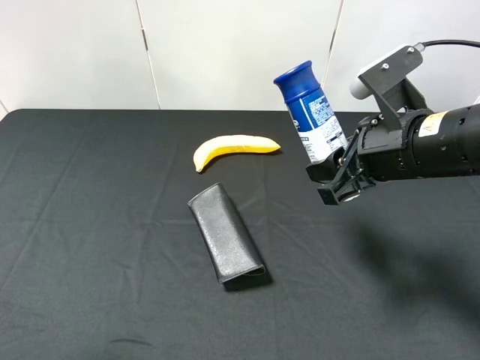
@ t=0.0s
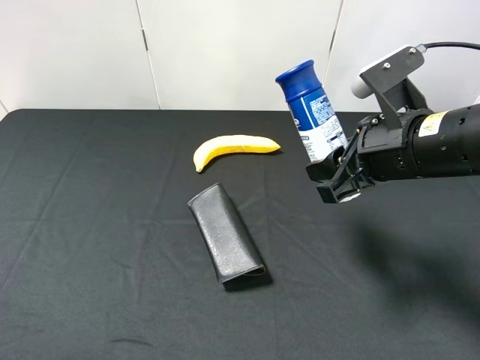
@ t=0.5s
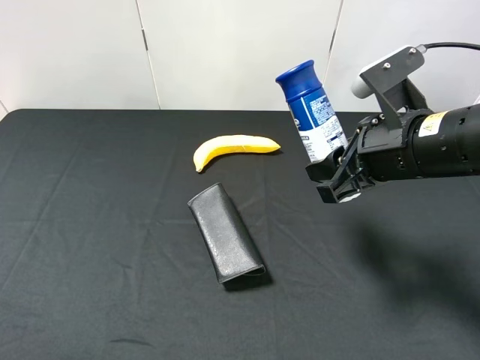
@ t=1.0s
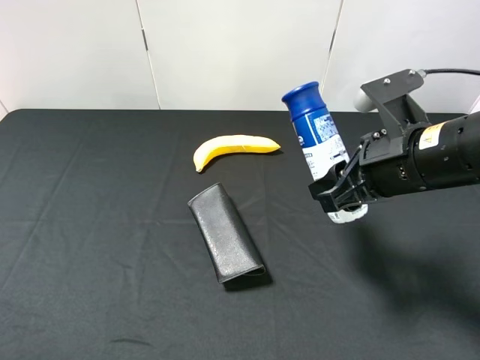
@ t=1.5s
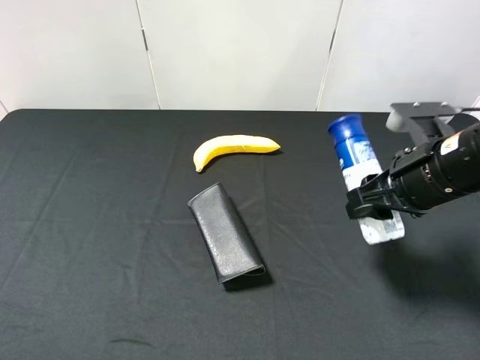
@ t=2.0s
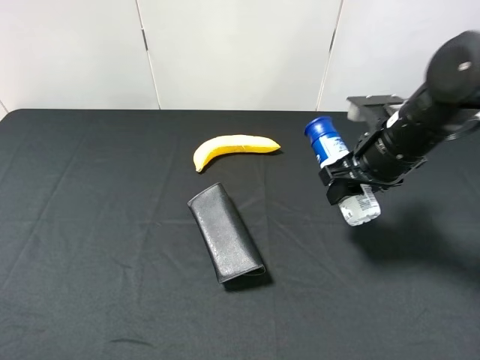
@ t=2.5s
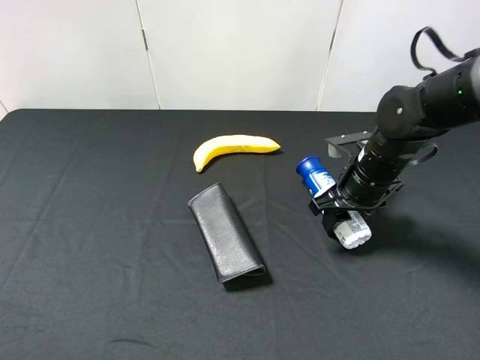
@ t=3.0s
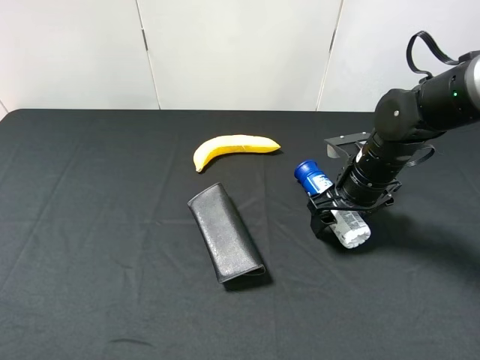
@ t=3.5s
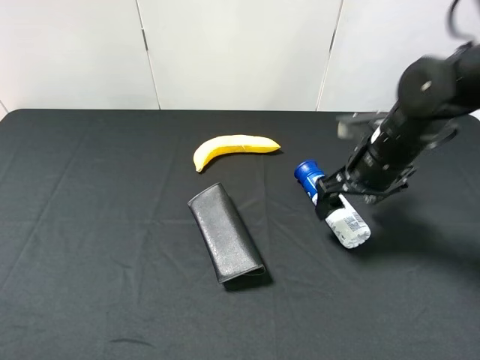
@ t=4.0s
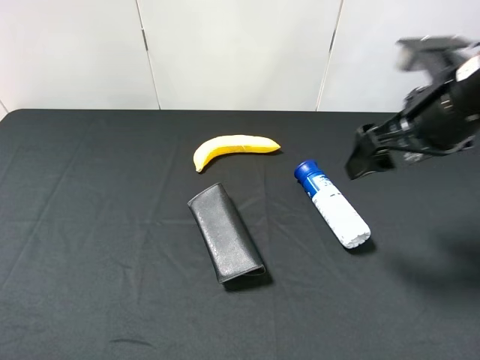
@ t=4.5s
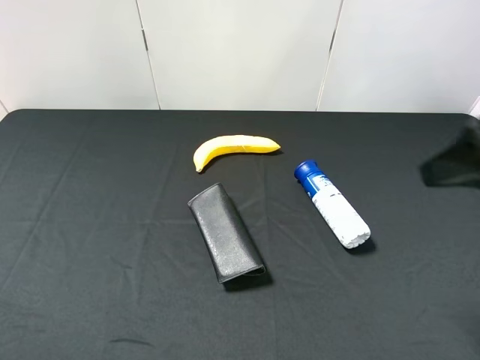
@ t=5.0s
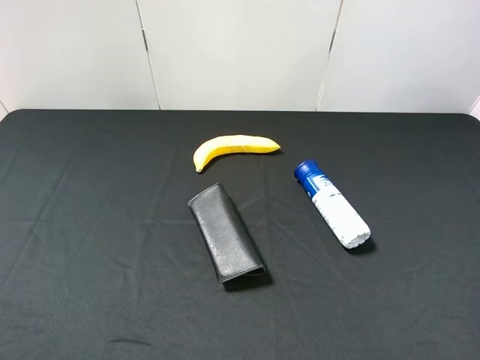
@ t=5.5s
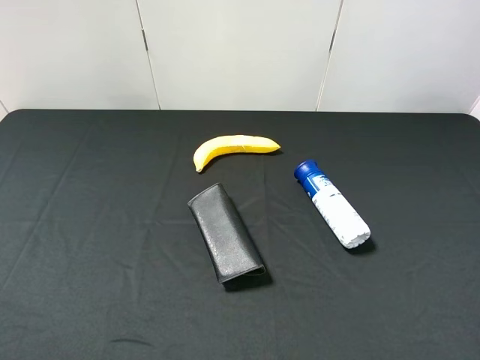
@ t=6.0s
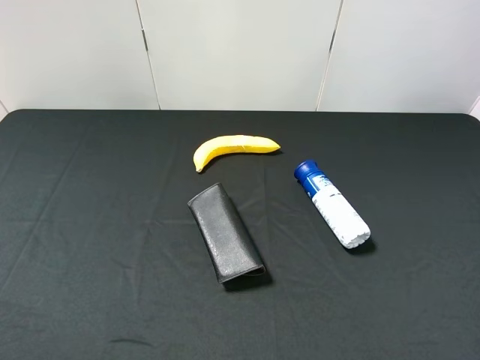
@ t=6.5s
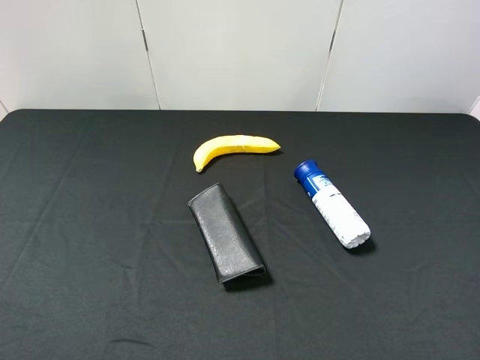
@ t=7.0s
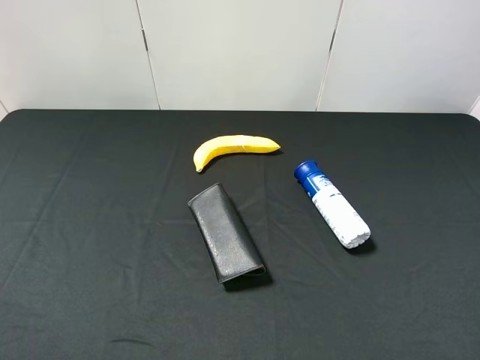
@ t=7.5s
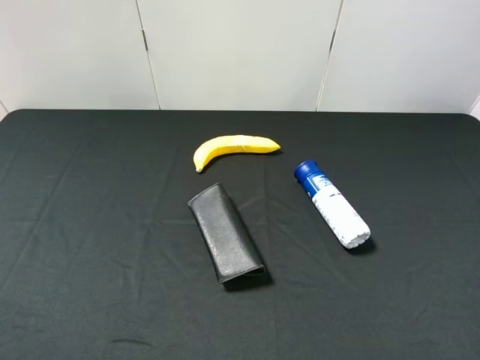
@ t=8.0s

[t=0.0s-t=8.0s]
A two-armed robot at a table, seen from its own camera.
Task of the whole recording: use the left gripper to pick up the item and transfer it from the left gripper to the right gripper.
t=0.0s to t=2.0s: The left gripper goes about 5 cm backward.
t=2.0s to t=4.0s: The right gripper travels forward by approximately 5 cm, and opens.
t=4.0s to t=6.0s: The right gripper travels backward by roughly 30 cm.
